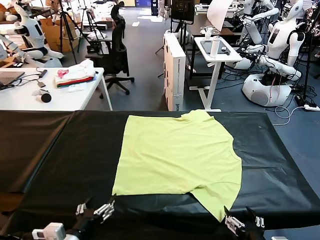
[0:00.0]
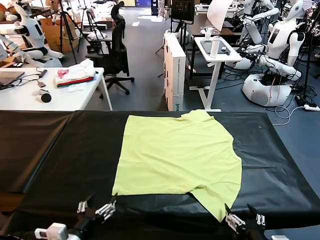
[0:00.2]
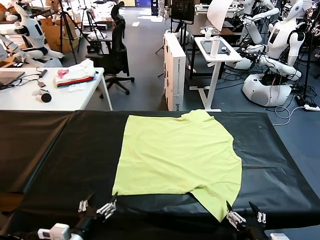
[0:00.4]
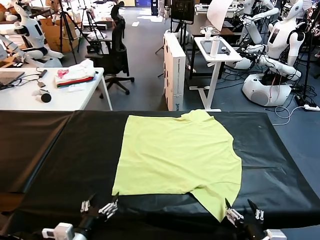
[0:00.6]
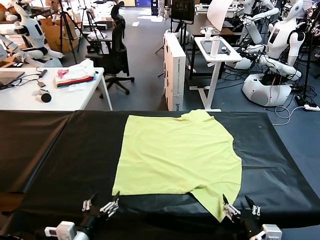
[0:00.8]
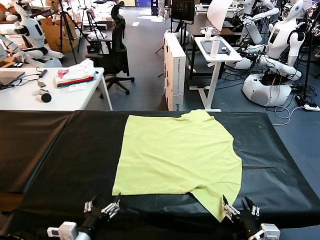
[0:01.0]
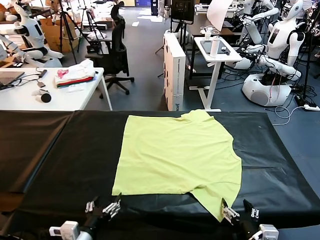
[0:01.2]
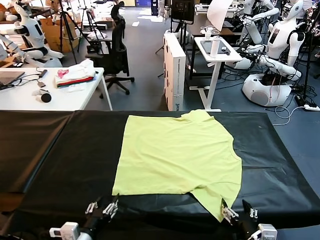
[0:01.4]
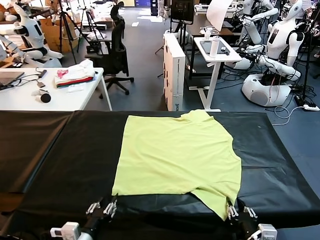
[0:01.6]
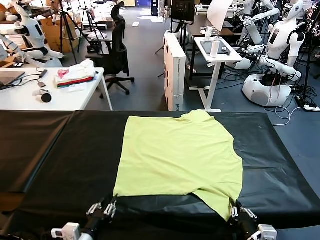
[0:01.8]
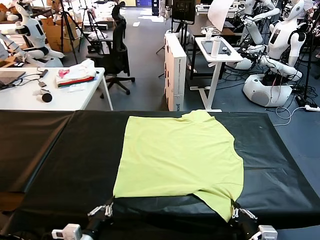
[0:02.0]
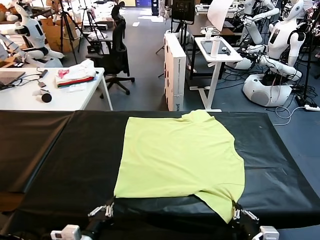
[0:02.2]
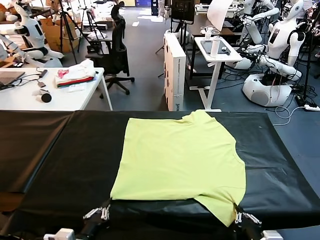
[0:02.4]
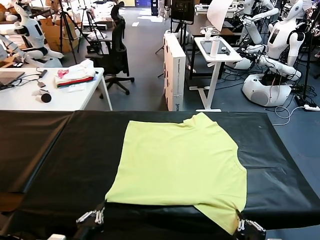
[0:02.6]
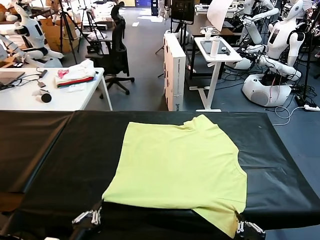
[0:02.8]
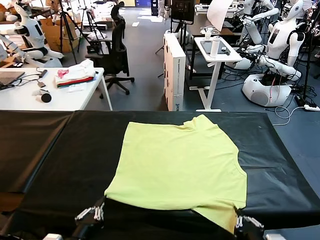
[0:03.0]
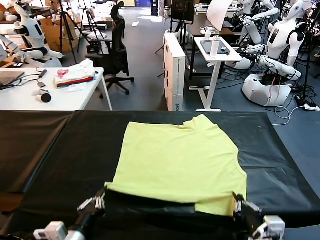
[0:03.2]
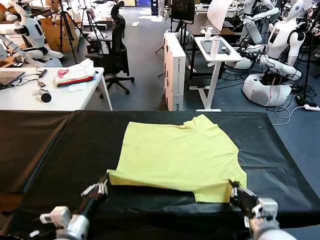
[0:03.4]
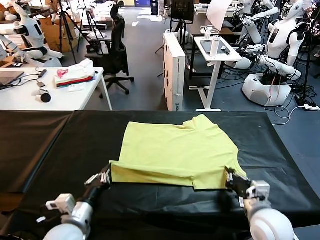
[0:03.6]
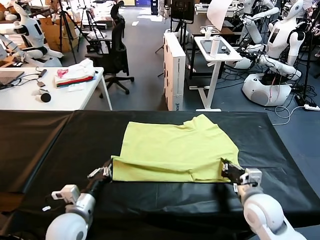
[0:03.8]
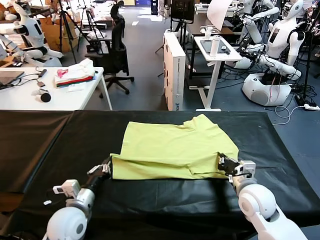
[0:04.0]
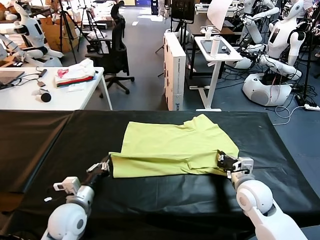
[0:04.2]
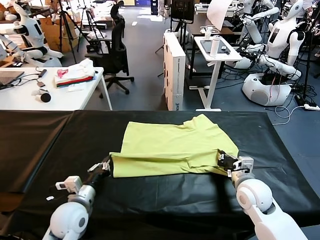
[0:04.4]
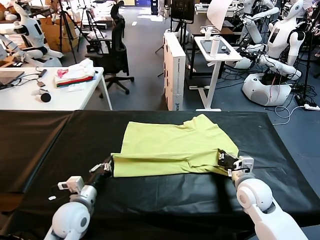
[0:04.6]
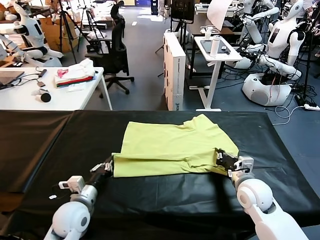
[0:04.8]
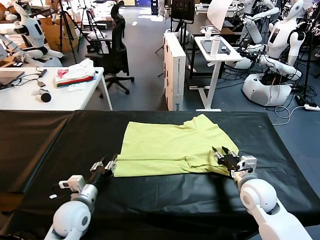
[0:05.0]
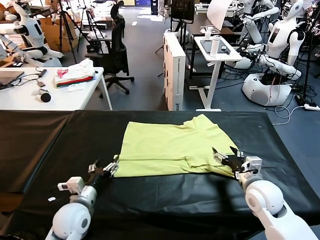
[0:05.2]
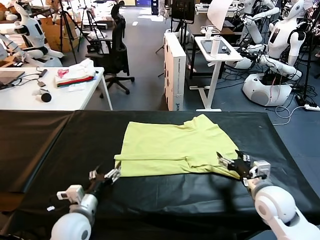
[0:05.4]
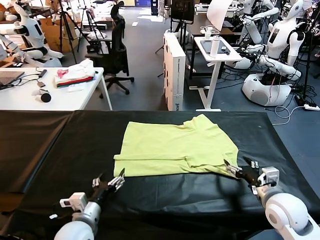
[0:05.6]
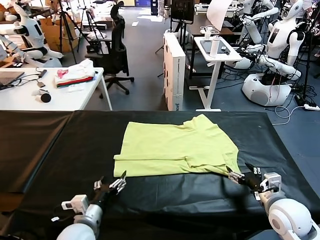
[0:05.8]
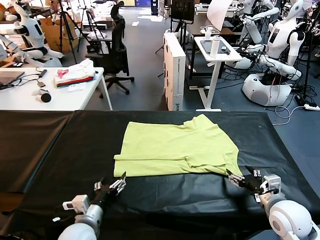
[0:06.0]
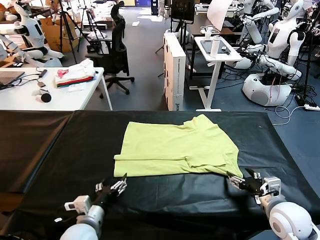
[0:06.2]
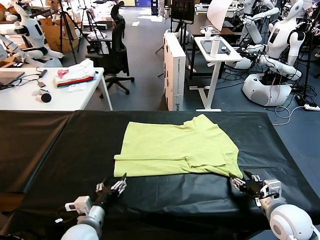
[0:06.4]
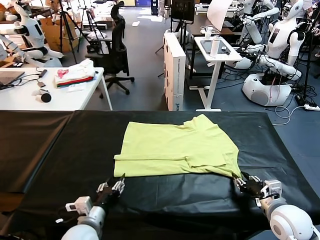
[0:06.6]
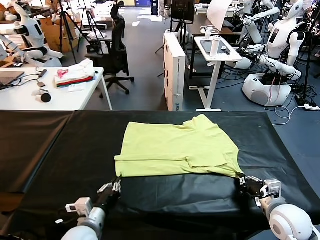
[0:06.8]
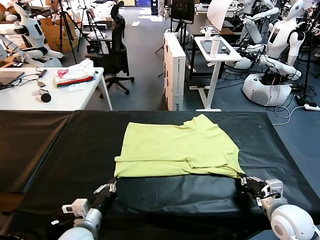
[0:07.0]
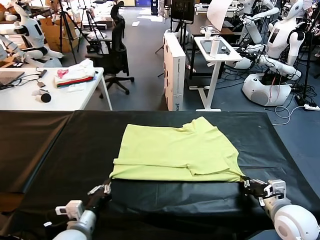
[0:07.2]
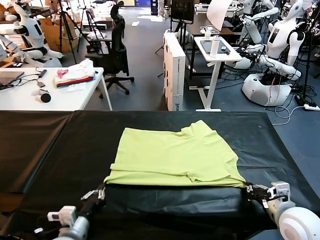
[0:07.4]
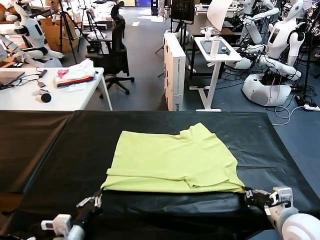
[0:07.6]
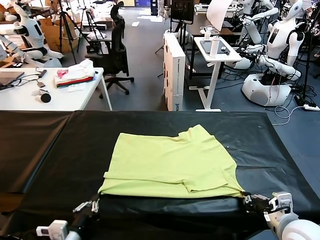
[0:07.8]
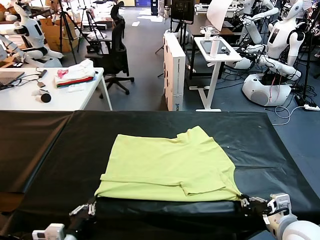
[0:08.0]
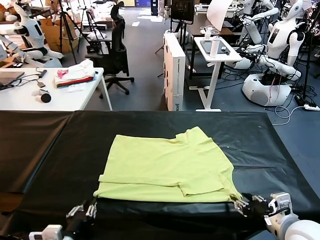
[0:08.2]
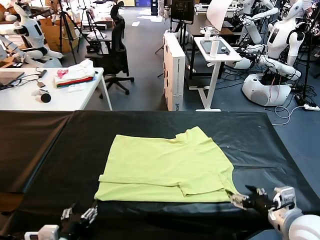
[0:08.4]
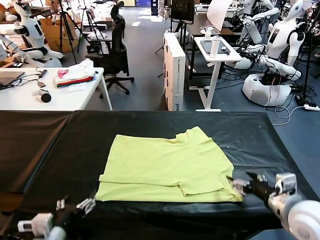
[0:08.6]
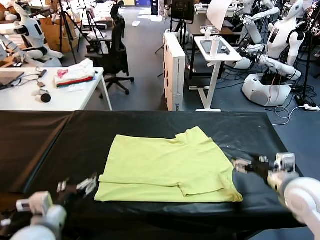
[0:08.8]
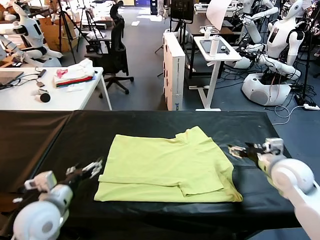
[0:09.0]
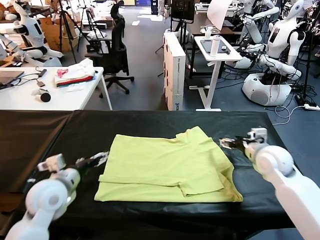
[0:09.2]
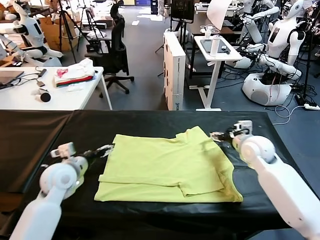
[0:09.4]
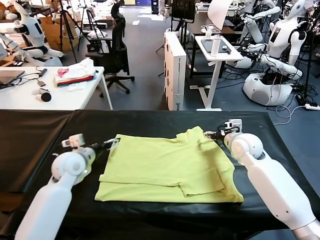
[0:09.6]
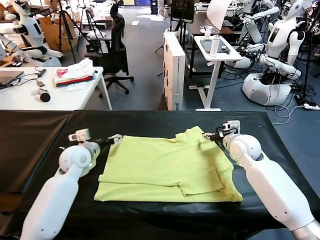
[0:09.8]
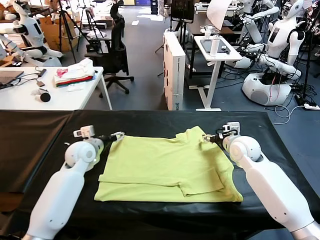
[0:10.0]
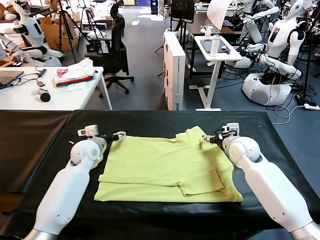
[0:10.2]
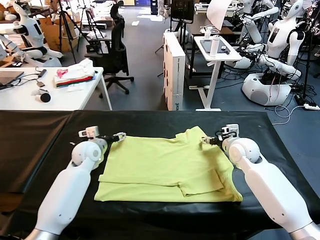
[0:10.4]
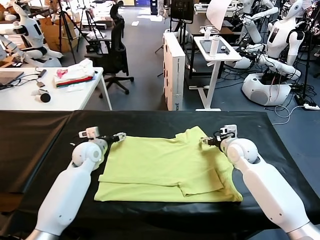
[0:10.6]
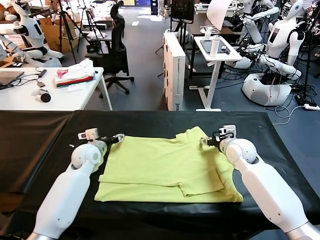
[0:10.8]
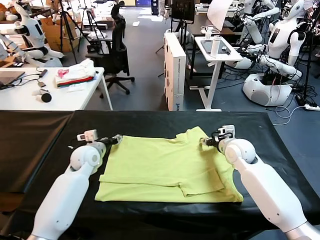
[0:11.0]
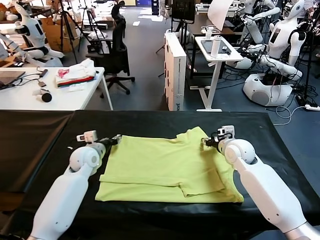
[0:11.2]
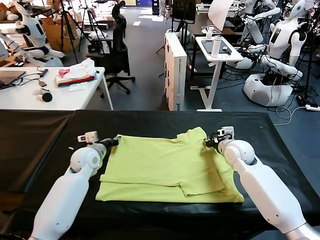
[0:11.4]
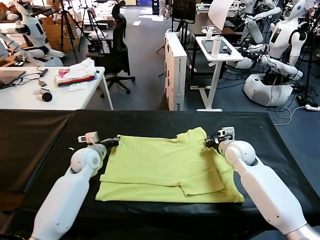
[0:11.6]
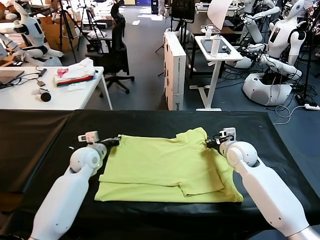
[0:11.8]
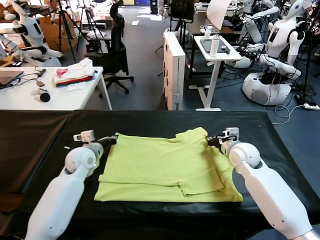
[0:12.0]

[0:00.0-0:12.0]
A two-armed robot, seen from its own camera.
Task of the whole recording: fold and organize the clothes.
Step, 0:00.0 to 0:02.4: use both grippers simultaneously to clamp the lower edge of the clothing fabric.
Step, 0:02.6 to 0:05.0: use both grippers to drag the lower edge of the fabric forward and fold it over the upper edge.
Step, 0:05.2 to 0:08.2: Drag the clothes downward with both gripper.
Step, 0:08.4 to 0:11.6: use both grippers simultaneously to clamp the upper edge of the clothing fabric.
0:01.6 to 0:03.0: The two grippers go approximately 5 cm upward. The left gripper closes up.
0:03.0 to 0:04.4: The grippers both shift forward by roughly 15 cm.
0:04.4 to 0:06.0: The right gripper moves backward and to the right, some 10 cm, and opens, while the left gripper shifts approximately 5 cm backward, and opens its fingers.
0:06.0 to 0:07.6: Both grippers travel together backward, roughly 5 cm. The left gripper closes its fingers. The right gripper closes.
0:07.6 to 0:09.0: The right gripper heads forward, covering some 25 cm, and opens. The left gripper moves forward and upward, roughly 15 cm, and opens its fingers.
0:09.0 to 0:10.4: The left gripper travels forward by approximately 20 cm; the right gripper ends up approximately 10 cm from where it was.
0:10.4 to 0:12.0: The left gripper closes up; the right gripper closes its fingers.

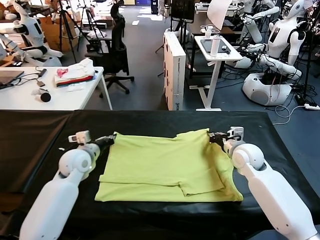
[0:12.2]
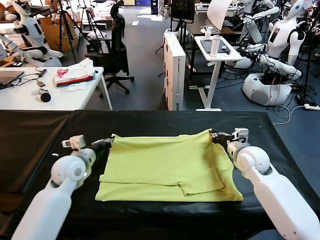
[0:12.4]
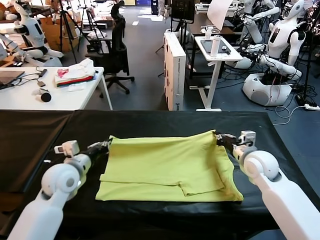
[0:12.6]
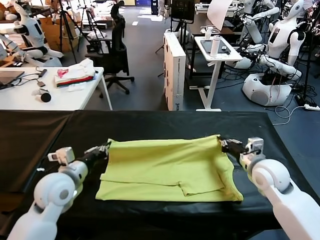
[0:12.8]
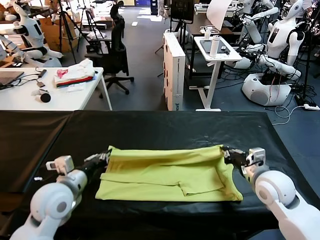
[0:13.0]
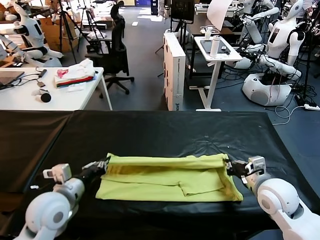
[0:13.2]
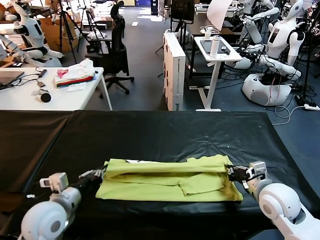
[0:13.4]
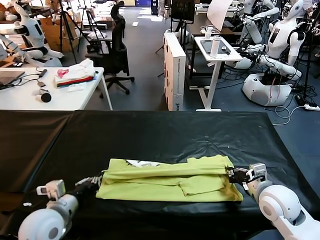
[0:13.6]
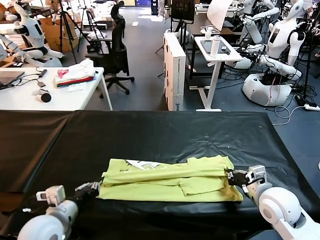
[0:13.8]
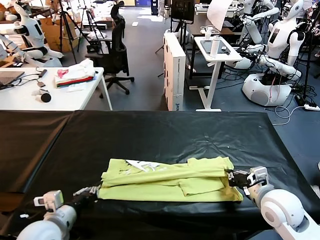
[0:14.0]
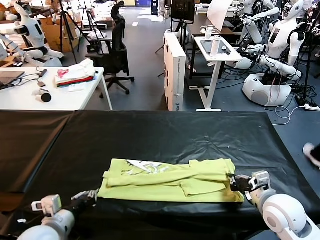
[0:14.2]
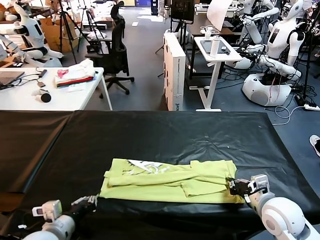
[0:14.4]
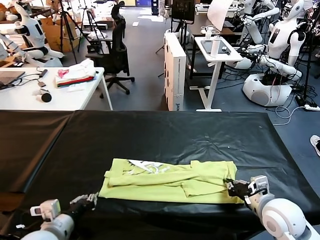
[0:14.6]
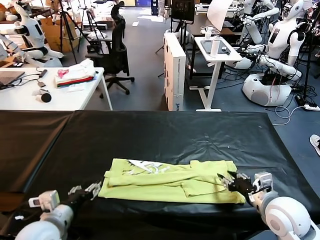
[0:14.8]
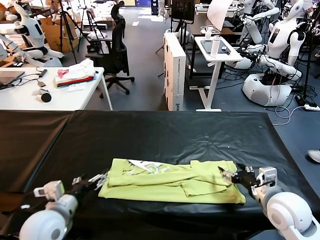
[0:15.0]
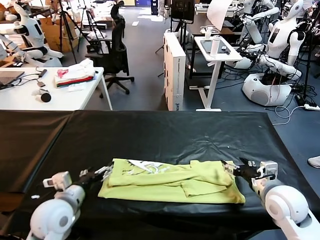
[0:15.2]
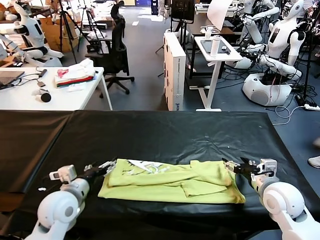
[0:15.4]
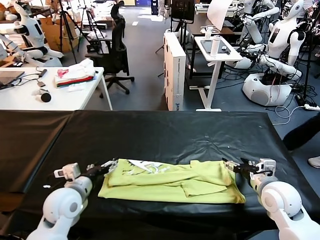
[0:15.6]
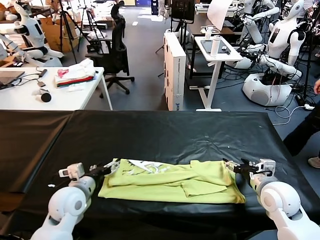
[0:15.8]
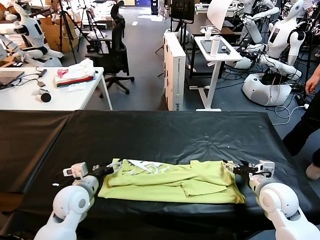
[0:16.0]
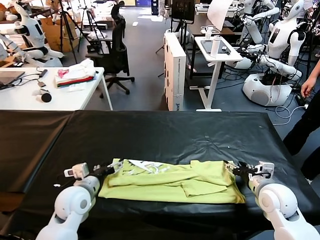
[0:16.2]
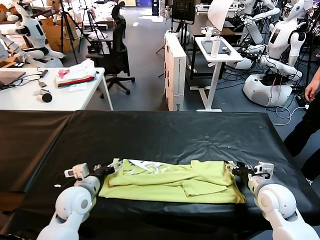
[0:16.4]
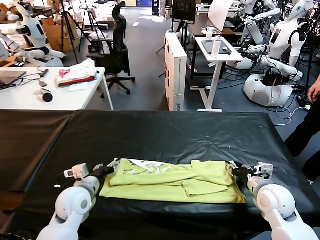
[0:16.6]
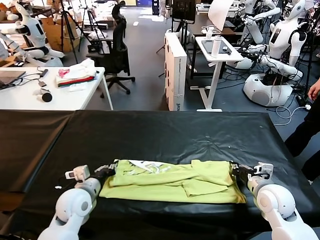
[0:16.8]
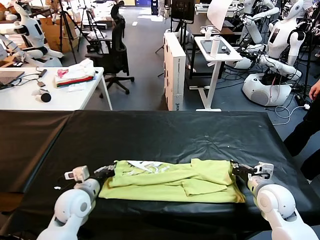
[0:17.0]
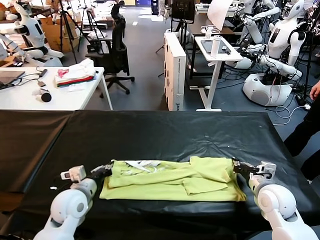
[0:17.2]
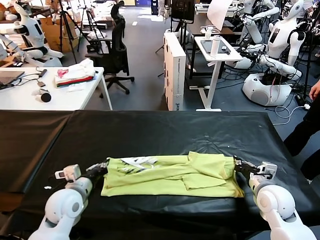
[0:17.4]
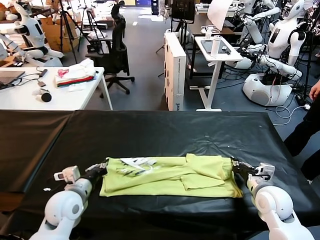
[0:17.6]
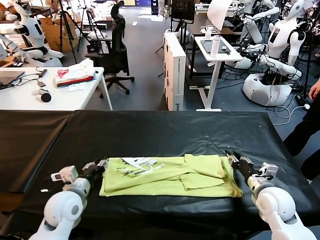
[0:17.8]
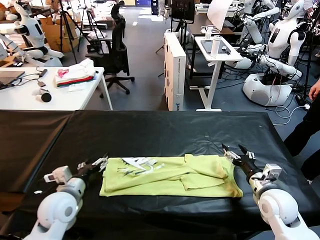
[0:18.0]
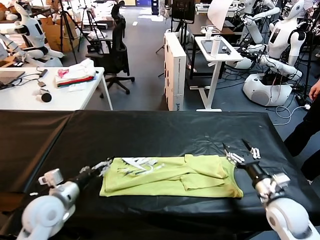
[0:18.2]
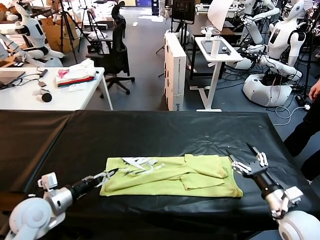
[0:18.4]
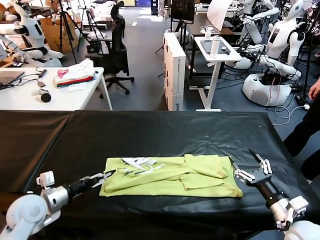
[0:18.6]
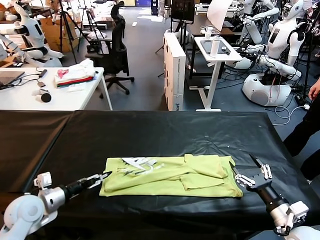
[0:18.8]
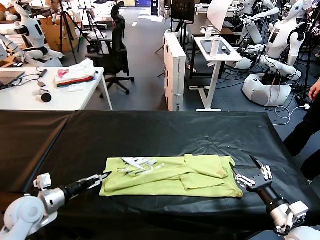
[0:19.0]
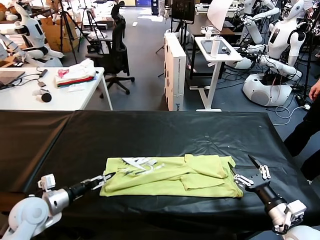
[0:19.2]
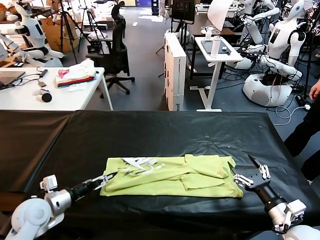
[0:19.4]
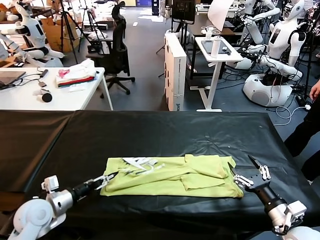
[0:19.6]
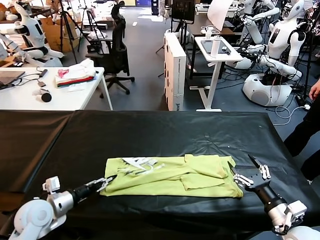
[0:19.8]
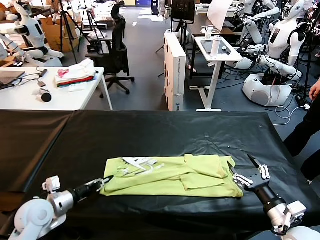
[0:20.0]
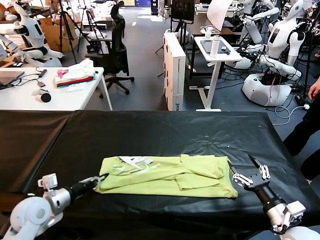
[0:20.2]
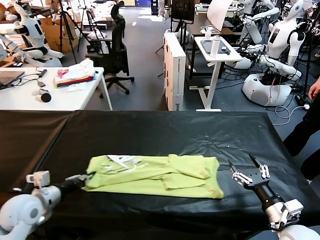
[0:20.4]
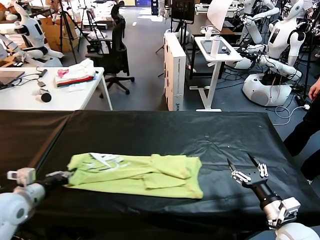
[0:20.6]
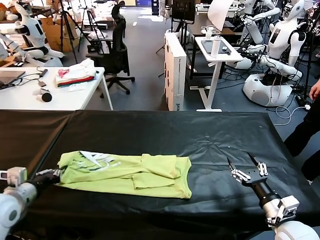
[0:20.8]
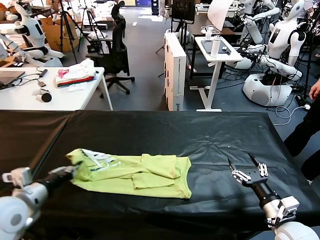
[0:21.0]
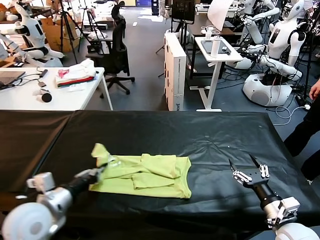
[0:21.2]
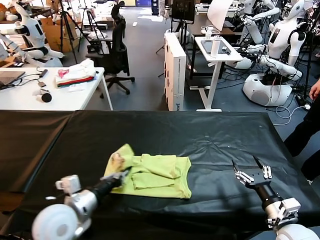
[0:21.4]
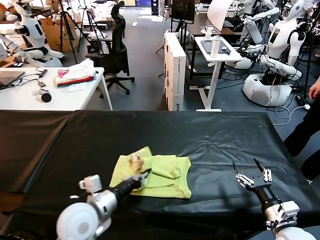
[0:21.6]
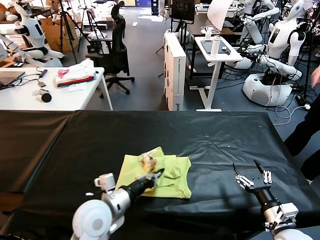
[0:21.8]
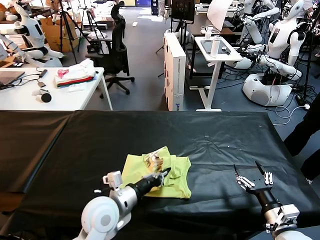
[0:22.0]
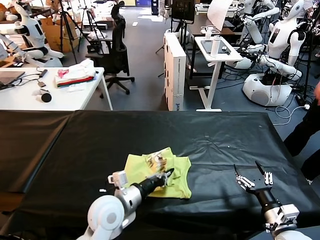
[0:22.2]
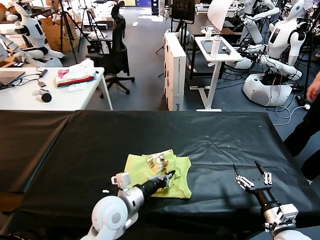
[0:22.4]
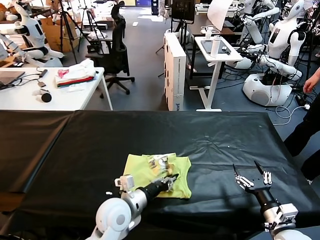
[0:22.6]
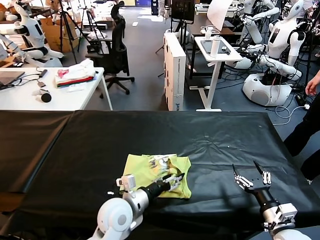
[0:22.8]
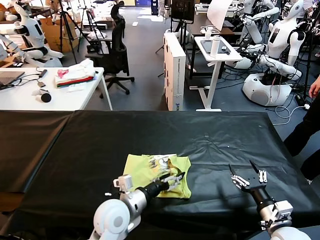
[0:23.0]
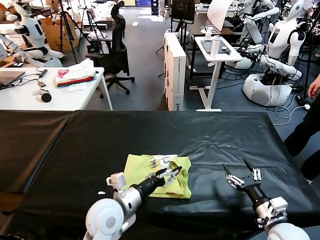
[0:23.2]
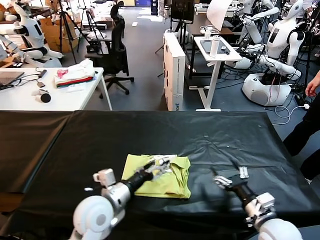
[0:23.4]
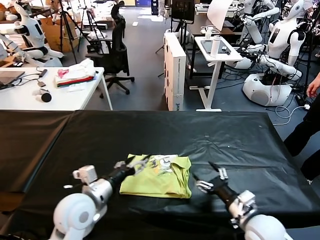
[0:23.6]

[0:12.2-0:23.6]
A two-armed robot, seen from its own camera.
Task of the whole recording: fold and organize the clothes.
Step, 0:12.2 to 0:14.8: use both grippers to drag the upper edge of the fabric backward and fold it over the lower edge.
Step, 0:15.2 to 0:20.0: use the left gripper to clamp the left edge of the fabric.
Step, 0:20.2 to 0:22.8: use the left gripper to drag the left edge of the fabric to the left and folds it over the right edge.
0:12.2 to 0:13.6: Both grippers move backward, approximately 15 cm.
0:13.6 to 0:15.0: The left gripper opens. Meanwhile the right gripper opens its fingers.
0:15.0 to 0:16.4: The left gripper heads forward and downward, covering approximately 10 cm, while the right gripper shifts by some 5 cm, and closes its fingers.
0:16.4 to 0:17.8: The left gripper closes, then reopens. The right gripper closes and opens again.
0:17.8 to 0:19.4: The left gripper is displaced to the left by approximately 10 cm, and opens its fingers. Meanwhile the right gripper goes approximately 10 cm backward.
0:19.4 to 0:20.8: The left gripper shifts approximately 10 cm upward, and closes its fingers.
0:20.8 to 0:22.2: The left gripper goes about 25 cm to the right.
0:22.2 to 0:23.6: Both grippers travel together to the left, some 10 cm. The left gripper opens its fingers.
